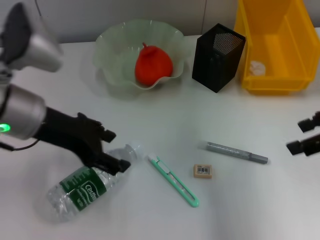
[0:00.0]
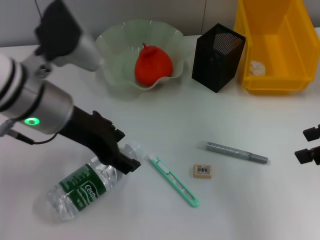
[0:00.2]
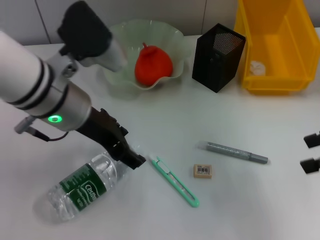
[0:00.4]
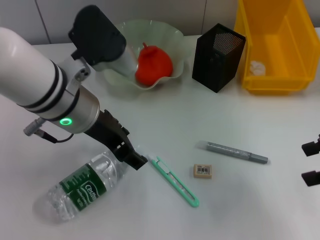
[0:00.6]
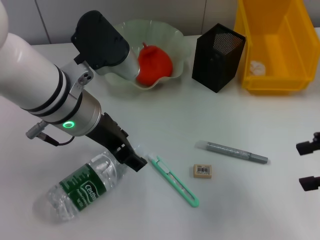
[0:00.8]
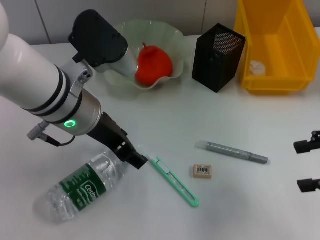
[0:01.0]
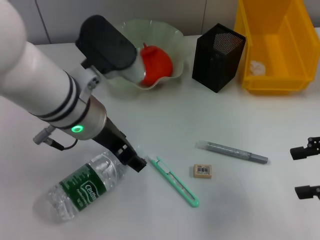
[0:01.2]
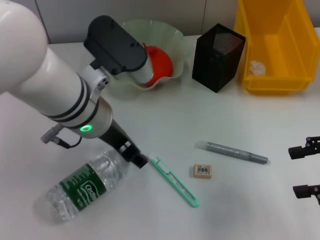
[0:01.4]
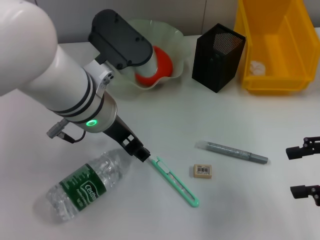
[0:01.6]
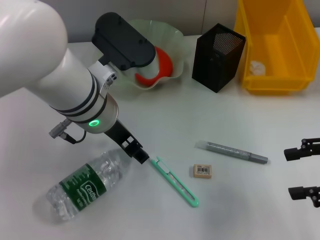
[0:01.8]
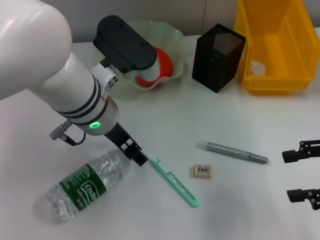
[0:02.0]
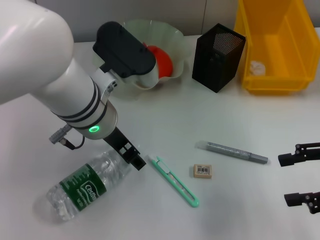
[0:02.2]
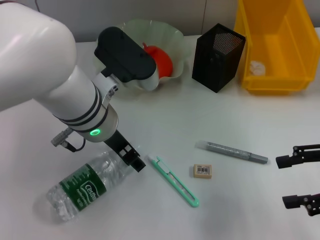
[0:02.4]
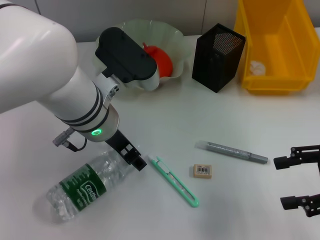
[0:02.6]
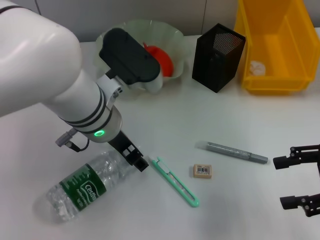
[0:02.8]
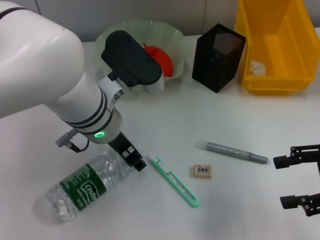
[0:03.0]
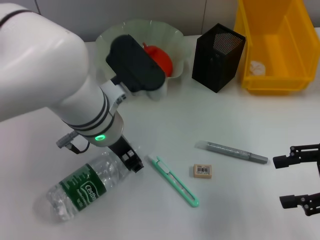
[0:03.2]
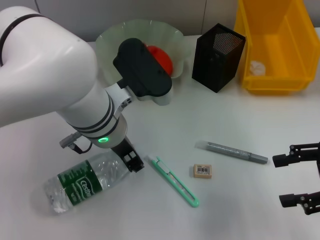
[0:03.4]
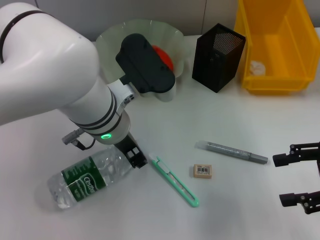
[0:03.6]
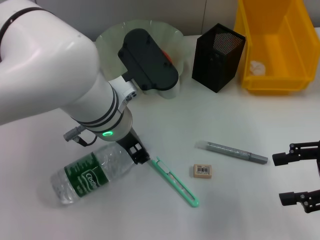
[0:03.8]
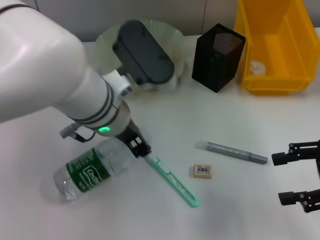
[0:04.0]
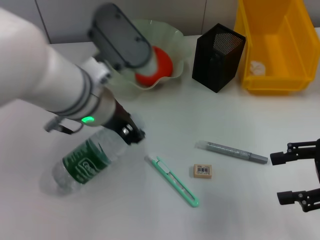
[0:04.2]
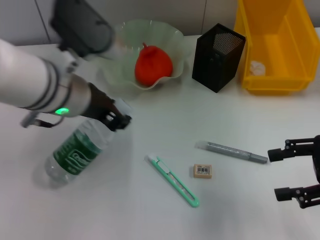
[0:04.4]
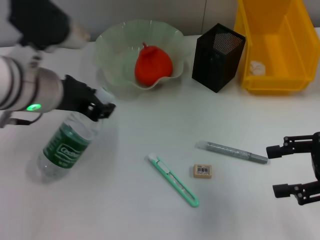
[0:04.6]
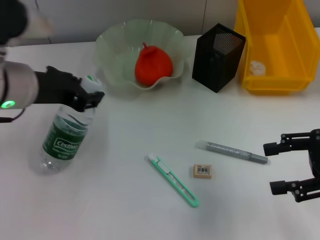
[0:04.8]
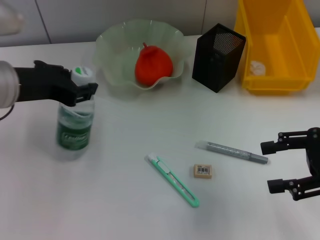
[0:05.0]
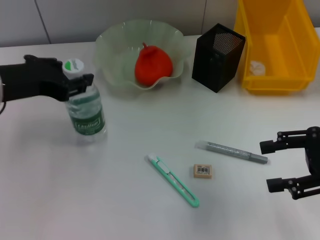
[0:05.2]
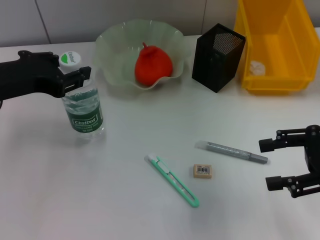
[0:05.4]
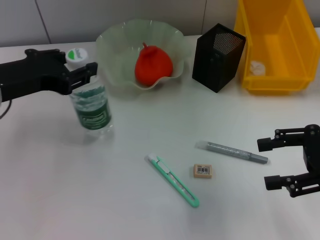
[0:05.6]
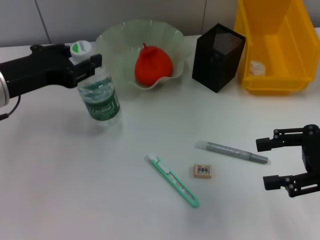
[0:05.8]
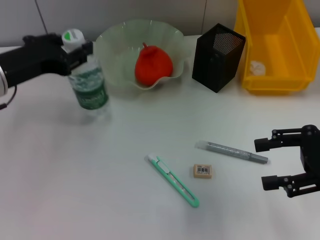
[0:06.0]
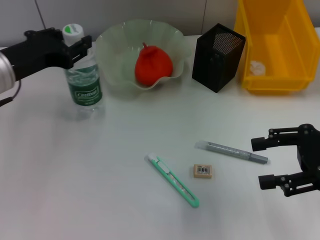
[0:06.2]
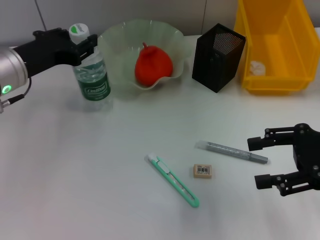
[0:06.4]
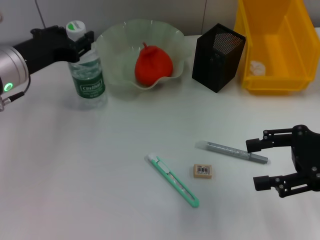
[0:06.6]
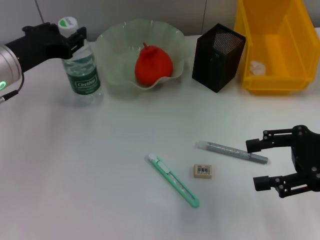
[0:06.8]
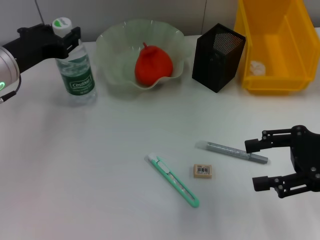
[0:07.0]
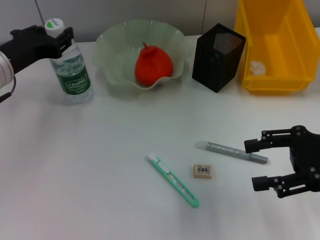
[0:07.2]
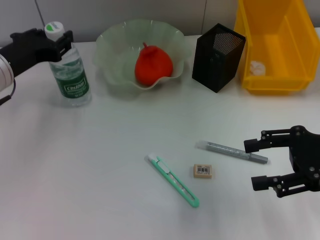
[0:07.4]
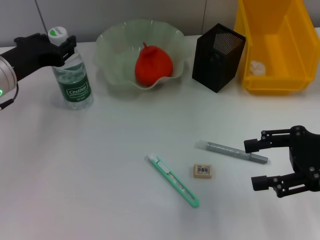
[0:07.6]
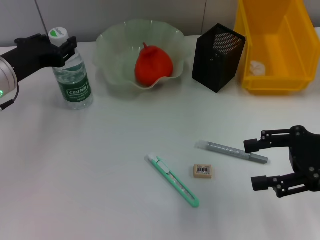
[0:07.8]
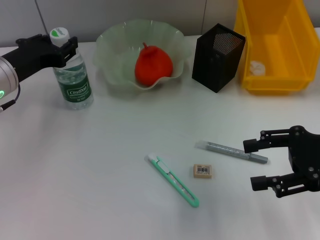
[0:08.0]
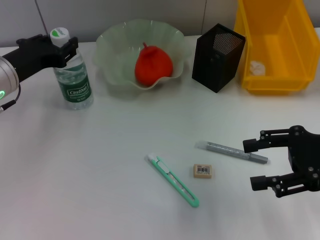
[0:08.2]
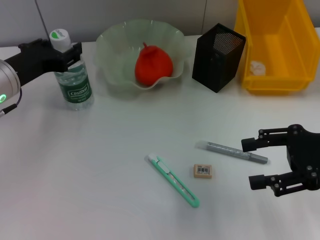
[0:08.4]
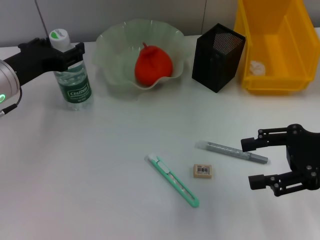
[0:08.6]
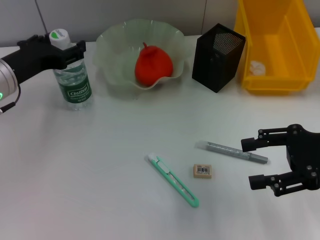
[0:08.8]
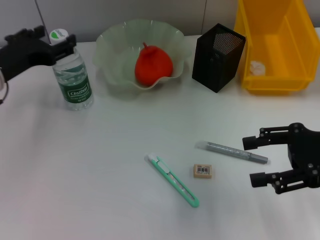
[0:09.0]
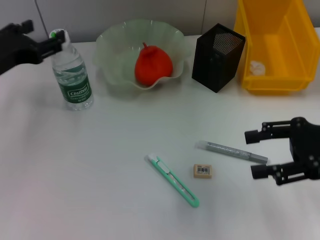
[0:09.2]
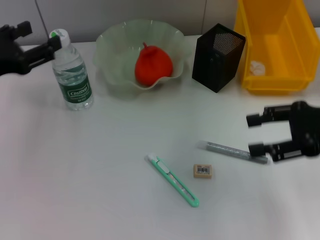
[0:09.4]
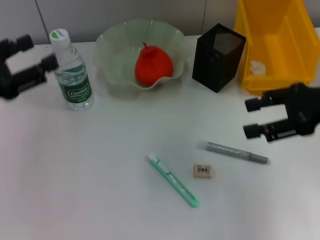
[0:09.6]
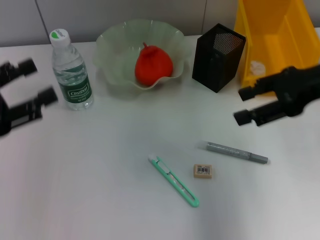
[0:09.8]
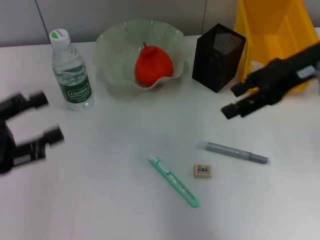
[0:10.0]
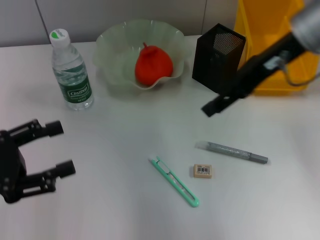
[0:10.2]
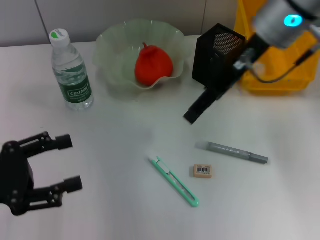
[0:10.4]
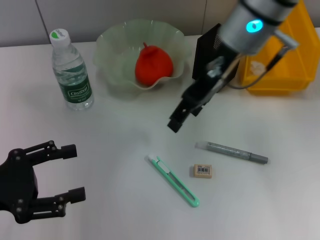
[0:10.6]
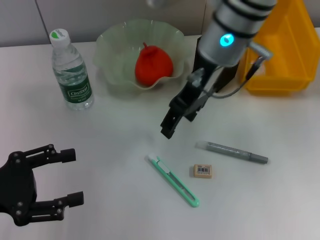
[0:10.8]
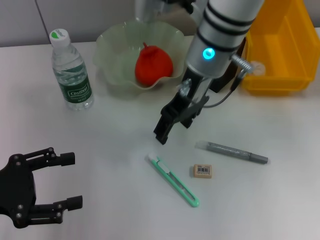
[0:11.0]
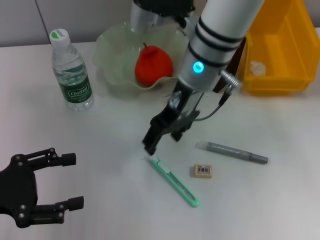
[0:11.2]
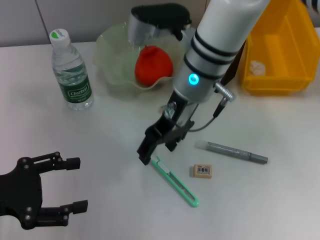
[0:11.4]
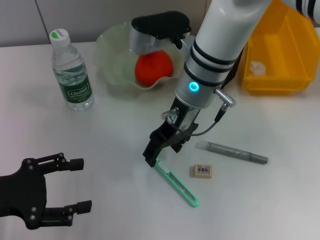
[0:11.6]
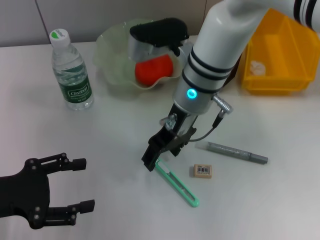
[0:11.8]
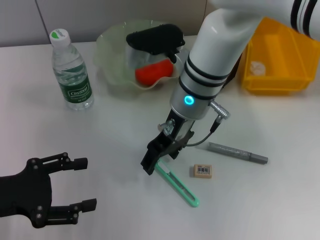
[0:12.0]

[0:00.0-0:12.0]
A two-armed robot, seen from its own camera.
Step, 0:00.0 to 0:03.2: Grab the water bottle with the left hand.
Step, 0:03.6 to 0:08.6: Place the water bottle on the table with the left hand.
0:00.0 to 0:01.6: The right gripper shifts approximately 5 cm backward. Meanwhile the left gripper heads to the right, covering about 10 cm.
0:01.6 to 0:03.0: The grippers stay close to where they were, moving slightly.
0:03.0 to 0:04.4: The left gripper moves roughly 5 cm, and closes.
0:04.4 to 0:06.0: The left gripper is displaced to the left by some 10 cm.
0:06.0 to 0:07.6: The grippers move only a little.
0:07.6 to 0:09.0: The two grippers keep their place.
0:09.0 to 0:10.4: The right gripper shifts roughly 25 cm to the left, forward and upward. The left gripper goes roughly 15 cm backward and to the left.
0:10.4 to 0:12.0: The right gripper moves downward and to the left, some 15 cm.

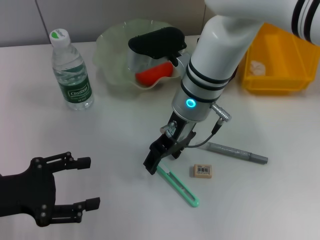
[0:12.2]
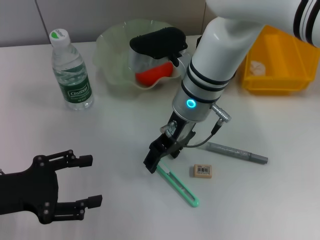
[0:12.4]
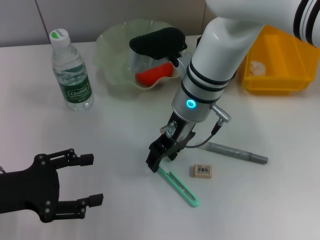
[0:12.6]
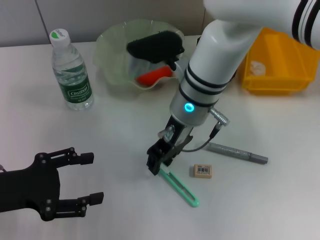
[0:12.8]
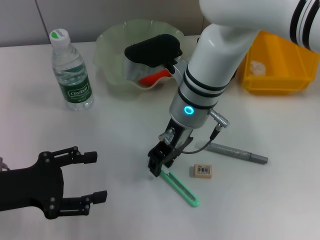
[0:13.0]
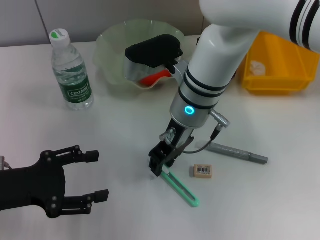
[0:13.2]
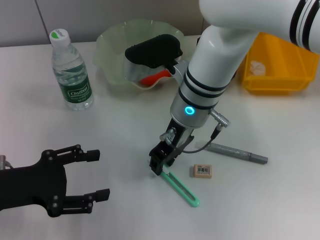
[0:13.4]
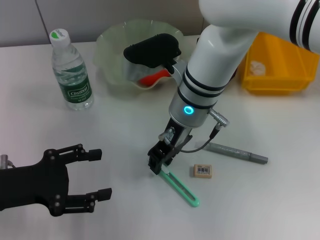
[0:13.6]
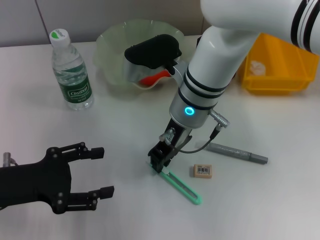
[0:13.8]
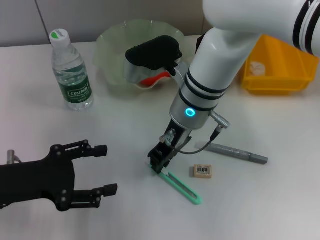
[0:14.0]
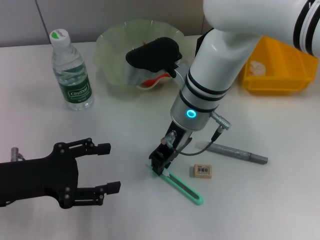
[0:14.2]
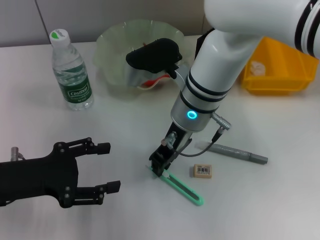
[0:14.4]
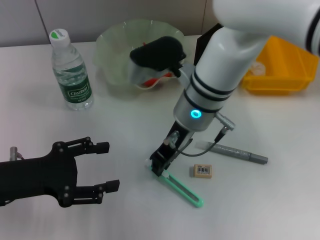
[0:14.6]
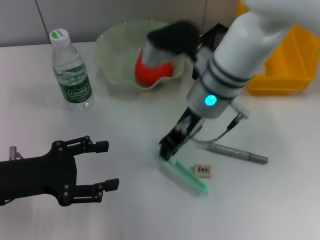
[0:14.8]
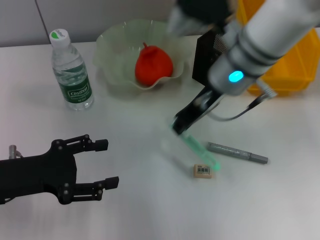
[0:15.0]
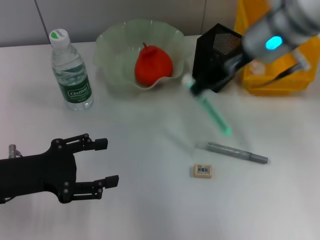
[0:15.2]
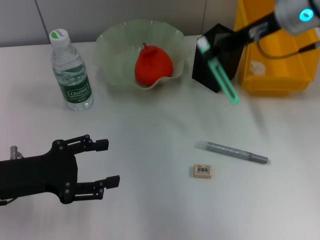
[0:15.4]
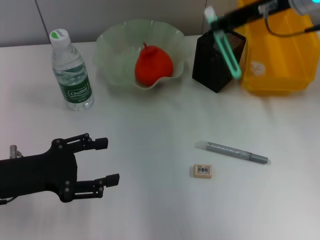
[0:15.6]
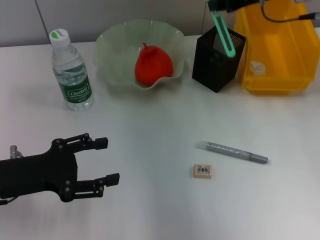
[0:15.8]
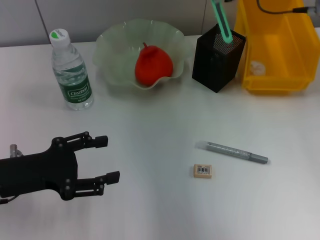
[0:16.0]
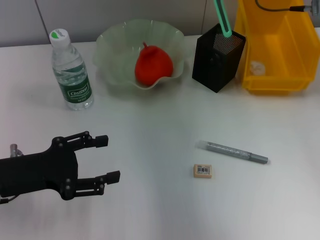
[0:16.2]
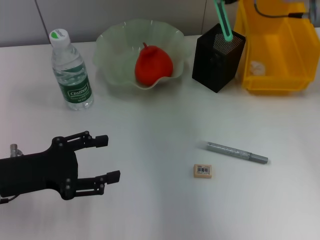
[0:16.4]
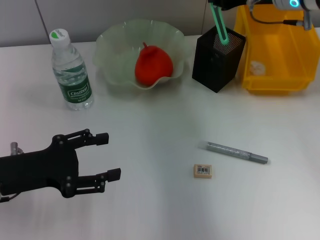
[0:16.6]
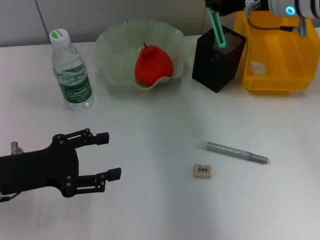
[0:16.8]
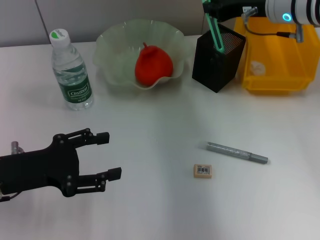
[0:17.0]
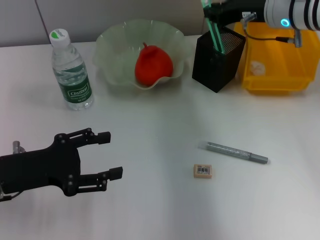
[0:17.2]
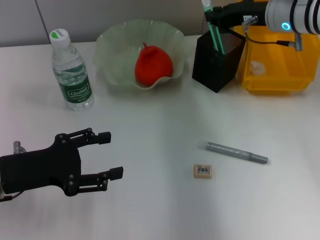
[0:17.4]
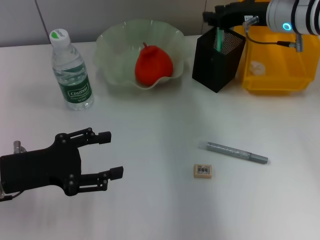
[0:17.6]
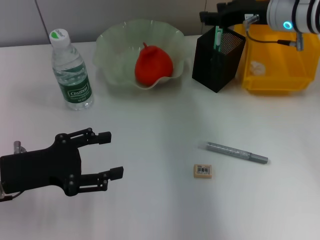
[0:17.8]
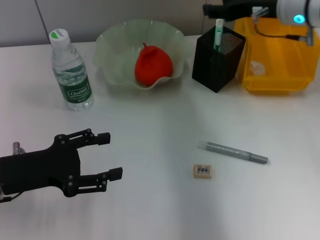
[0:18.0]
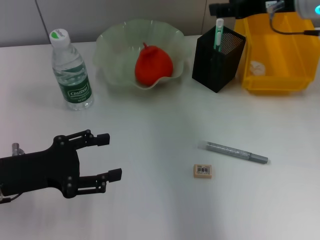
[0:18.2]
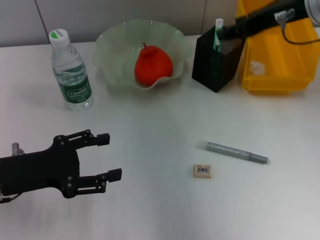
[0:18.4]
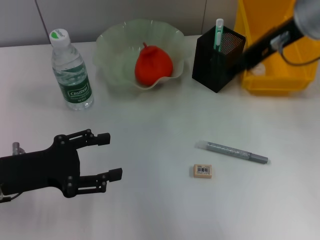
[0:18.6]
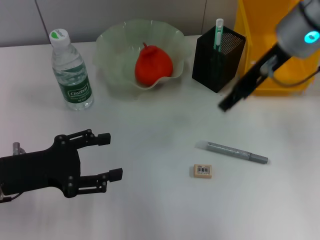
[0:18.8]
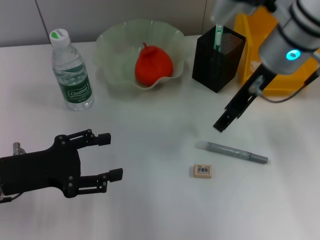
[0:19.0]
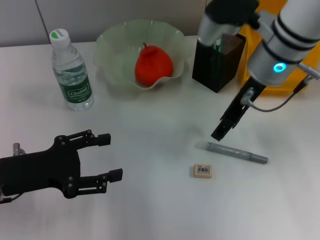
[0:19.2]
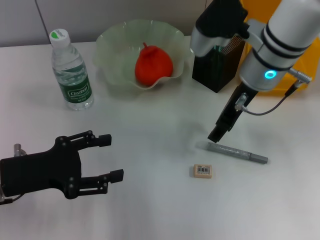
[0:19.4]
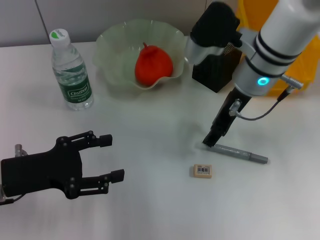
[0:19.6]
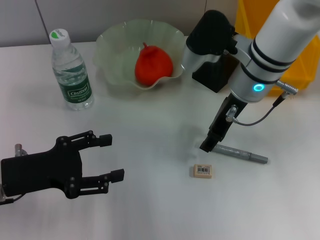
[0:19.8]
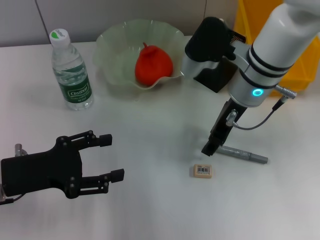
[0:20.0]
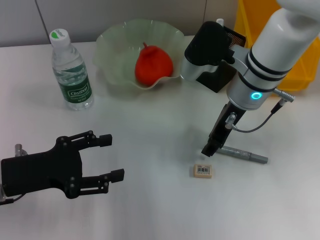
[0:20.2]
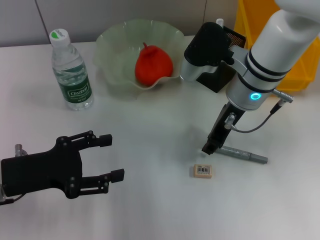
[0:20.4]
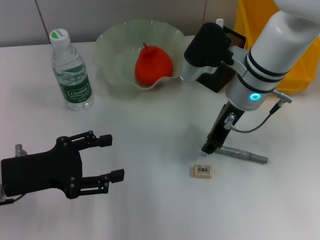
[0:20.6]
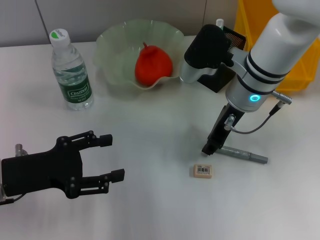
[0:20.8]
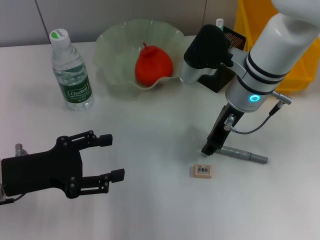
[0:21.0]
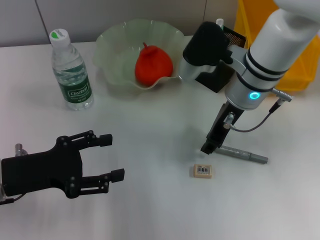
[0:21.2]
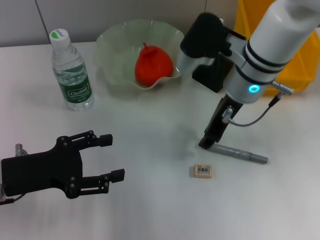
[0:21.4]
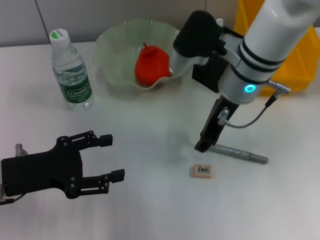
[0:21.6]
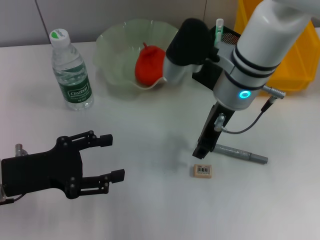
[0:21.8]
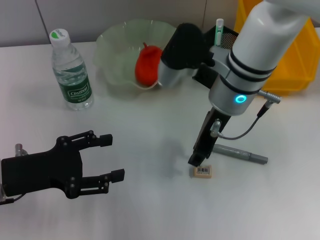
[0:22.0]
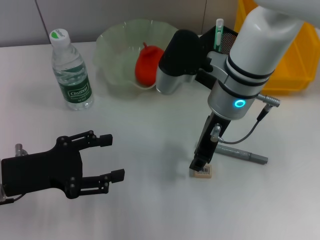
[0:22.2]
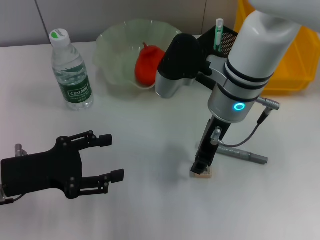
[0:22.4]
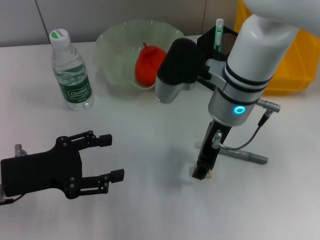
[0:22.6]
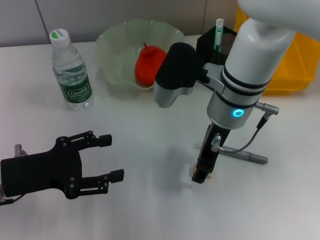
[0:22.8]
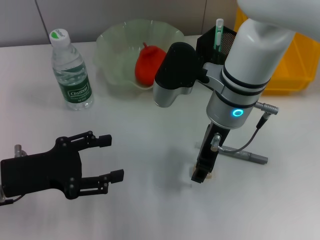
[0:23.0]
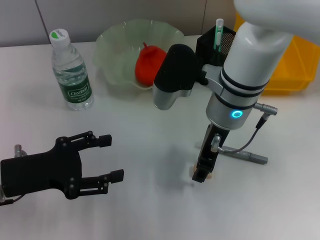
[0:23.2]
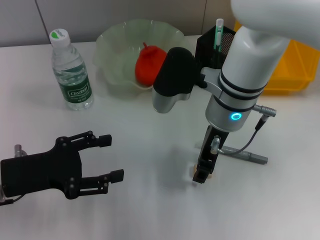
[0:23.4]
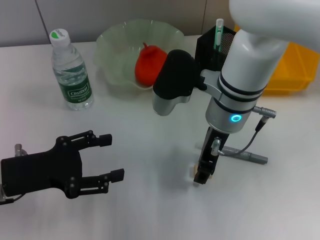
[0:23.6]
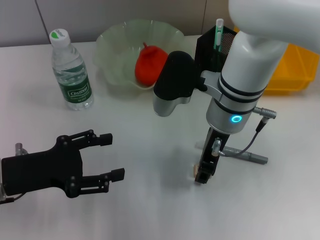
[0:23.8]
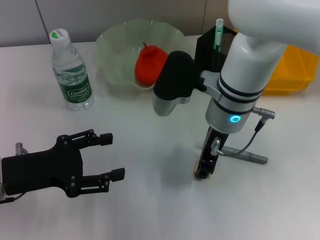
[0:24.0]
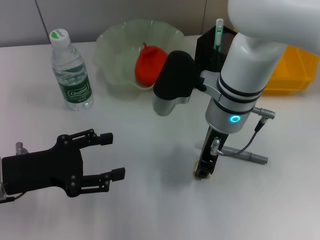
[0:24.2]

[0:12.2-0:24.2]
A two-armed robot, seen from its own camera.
Step, 0:12.2 to 0:14.4: Grab the blue utility knife with the right hand.
Step, 0:14.6 to 0:17.8: Place the blue utility knife into the pen holder with the right hand.
Step, 0:18.0 to 0:23.8: Grab the eraser with the right hand.
0:12.2 to 0:13.8: The right gripper closes up.
0:13.8 to 0:15.2: The right gripper moves to the right and upward, approximately 15 cm.
0:15.2 to 0:16.6: The right gripper moves to the right and forward, about 10 cm.
0:16.6 to 0:18.2: The right gripper opens up.
0:18.2 to 0:19.8: The right gripper shifts some 10 cm to the left and downward.
0:19.8 to 0:21.2: The right gripper closes.
0:21.2 to 0:24.2: The grippers move only a little.
